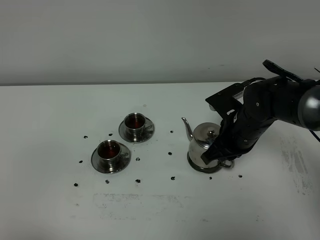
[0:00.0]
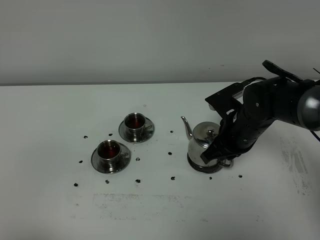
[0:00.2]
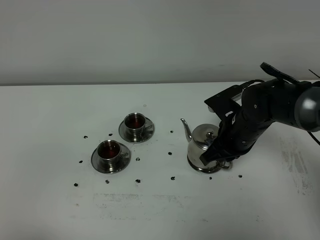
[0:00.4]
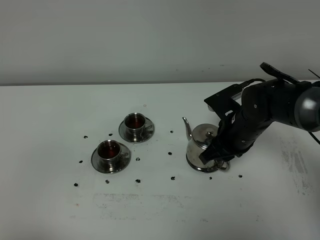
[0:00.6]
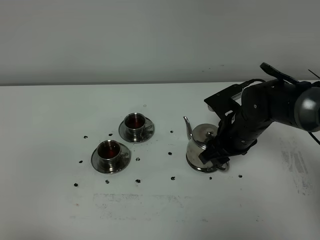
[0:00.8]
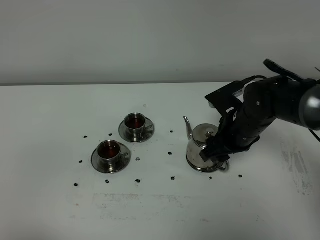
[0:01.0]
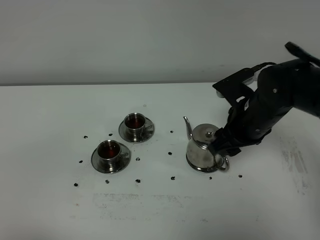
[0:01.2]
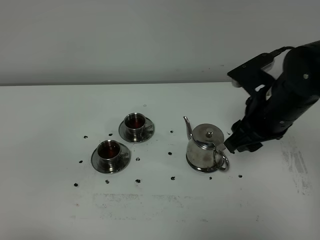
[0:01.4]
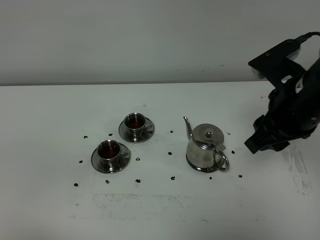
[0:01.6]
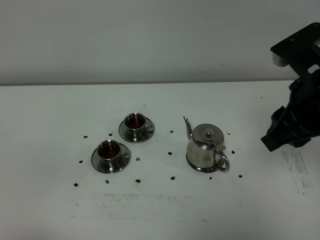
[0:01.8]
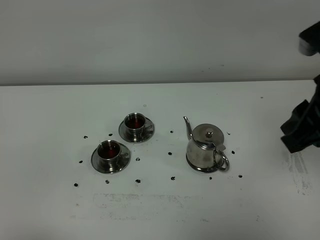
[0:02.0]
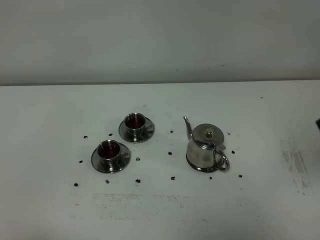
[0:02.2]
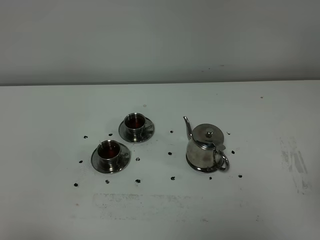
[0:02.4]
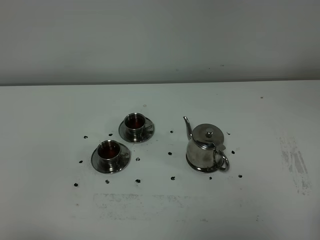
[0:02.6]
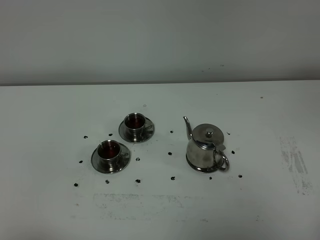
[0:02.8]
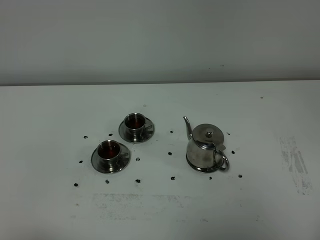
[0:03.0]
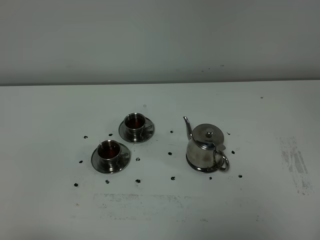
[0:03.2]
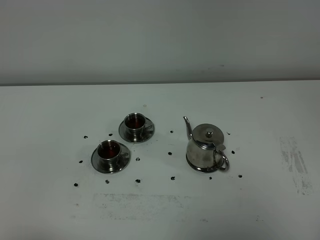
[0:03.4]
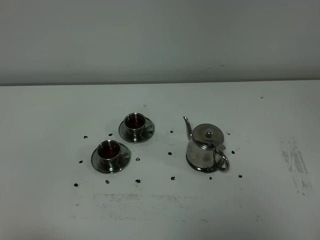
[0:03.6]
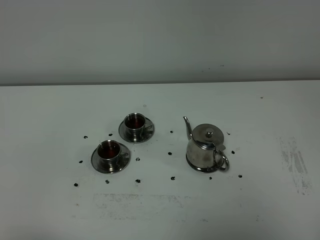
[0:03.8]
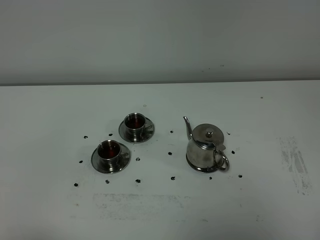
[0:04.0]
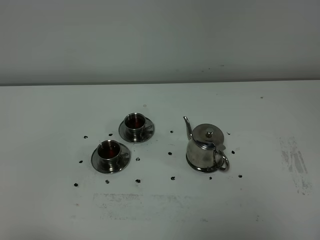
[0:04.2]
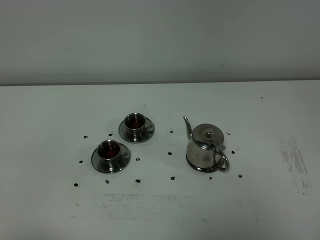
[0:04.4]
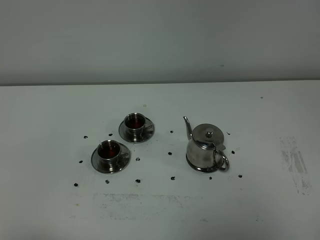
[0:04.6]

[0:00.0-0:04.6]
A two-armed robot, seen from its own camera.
Task of the whole recording: grasp the stainless steel teapot and pour the tea into the two stainless steel teacups one by one, put the stainless steel teapot back in its original place.
0:00.0 to 0:01.6: The right gripper travels upward and backward by roughly 20 cm, and opens up.
0:01.6 to 0:03.0: The right gripper shifts approximately 25 cm backward and to the right, and closes.

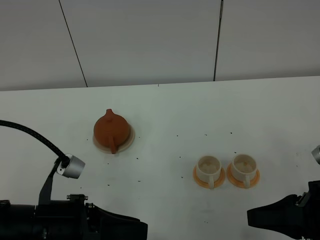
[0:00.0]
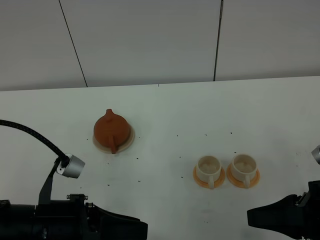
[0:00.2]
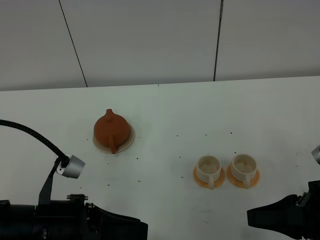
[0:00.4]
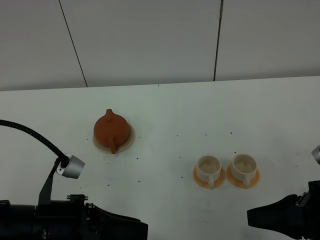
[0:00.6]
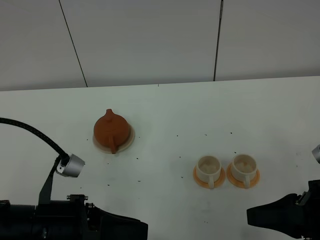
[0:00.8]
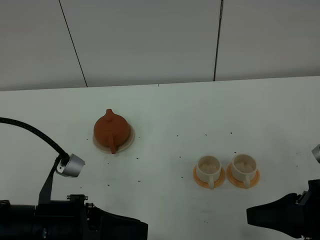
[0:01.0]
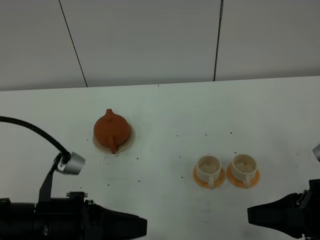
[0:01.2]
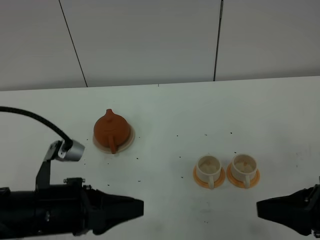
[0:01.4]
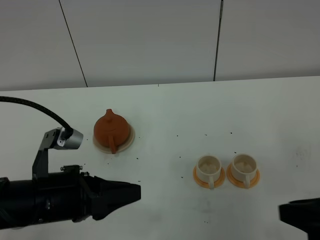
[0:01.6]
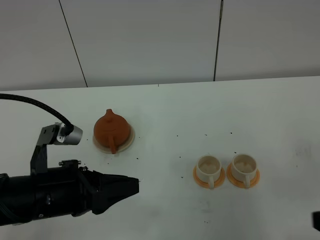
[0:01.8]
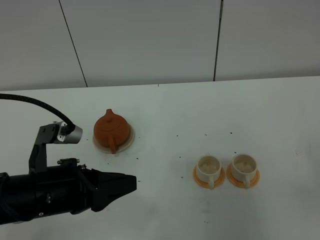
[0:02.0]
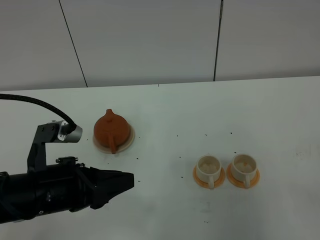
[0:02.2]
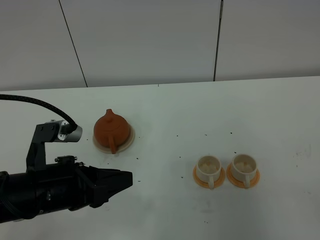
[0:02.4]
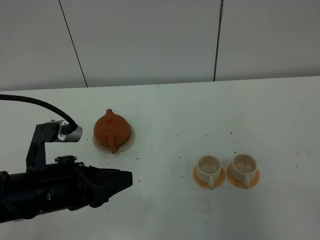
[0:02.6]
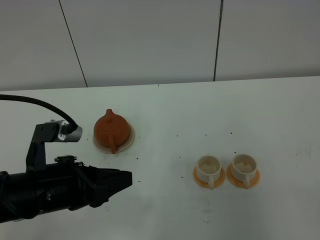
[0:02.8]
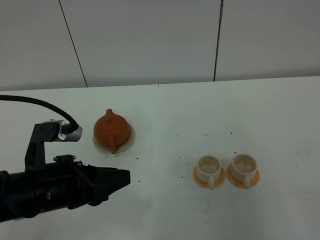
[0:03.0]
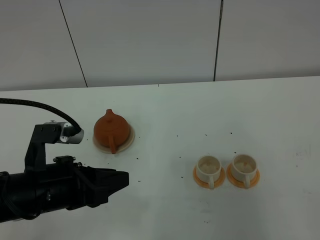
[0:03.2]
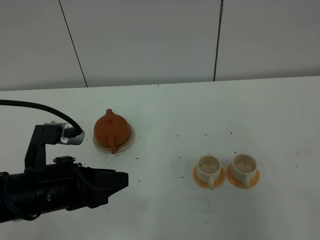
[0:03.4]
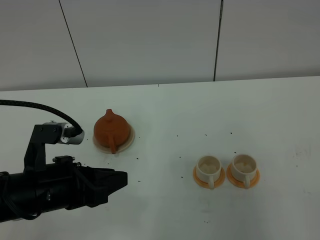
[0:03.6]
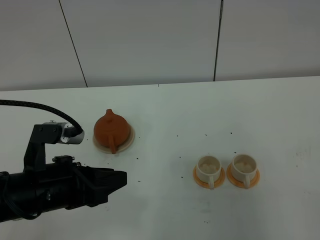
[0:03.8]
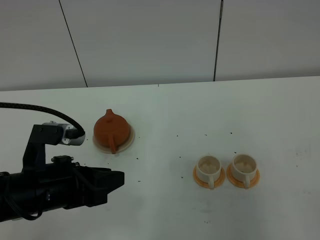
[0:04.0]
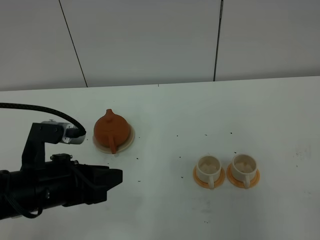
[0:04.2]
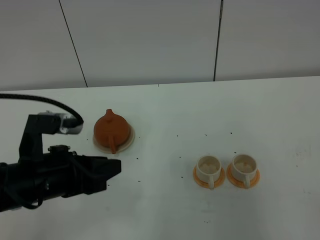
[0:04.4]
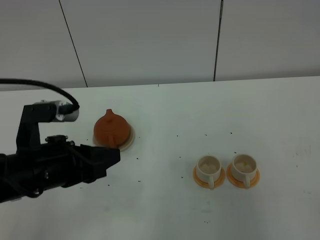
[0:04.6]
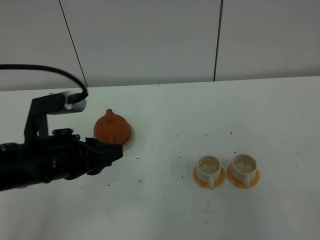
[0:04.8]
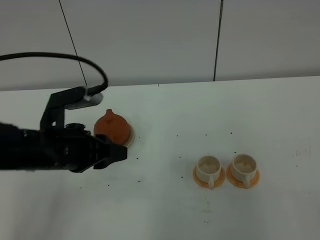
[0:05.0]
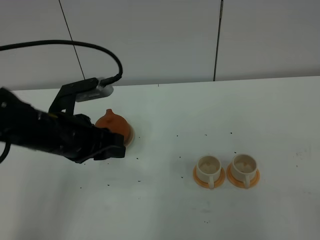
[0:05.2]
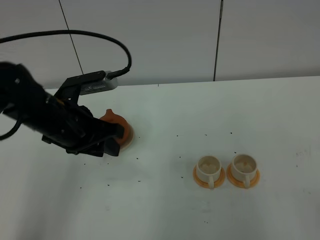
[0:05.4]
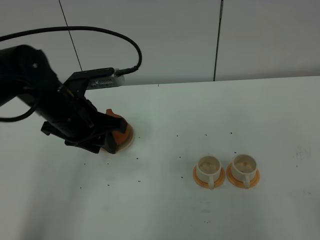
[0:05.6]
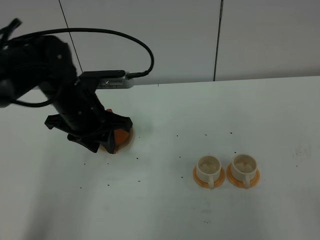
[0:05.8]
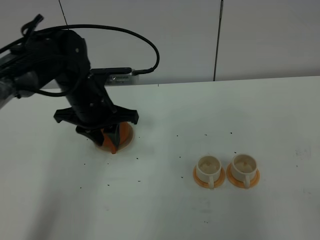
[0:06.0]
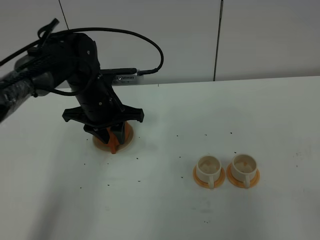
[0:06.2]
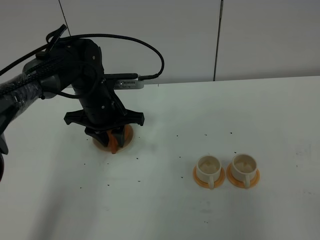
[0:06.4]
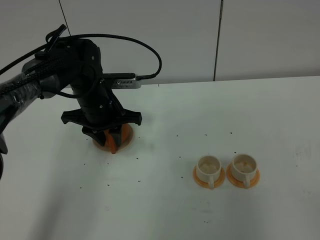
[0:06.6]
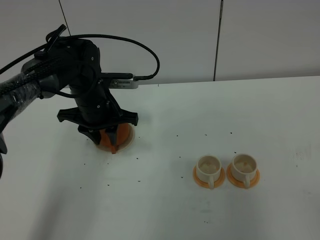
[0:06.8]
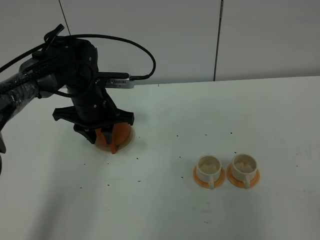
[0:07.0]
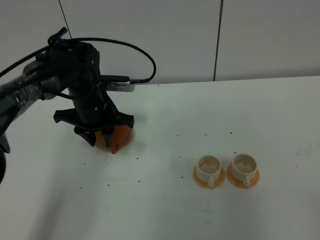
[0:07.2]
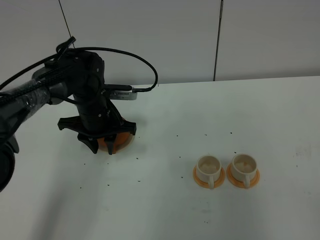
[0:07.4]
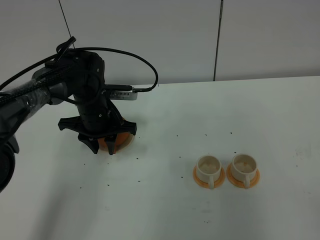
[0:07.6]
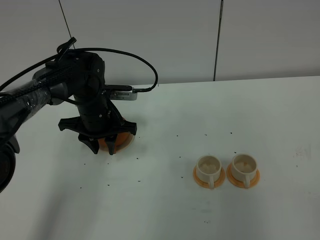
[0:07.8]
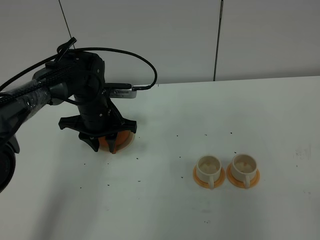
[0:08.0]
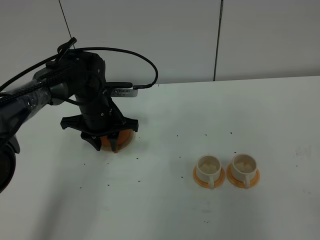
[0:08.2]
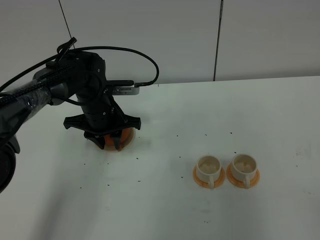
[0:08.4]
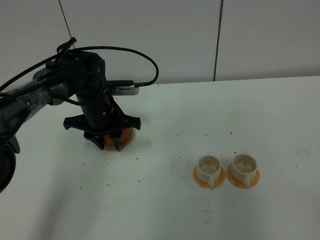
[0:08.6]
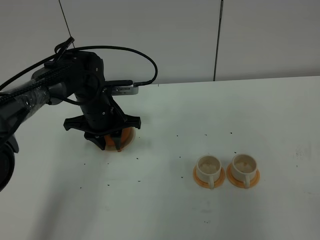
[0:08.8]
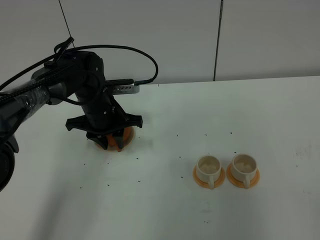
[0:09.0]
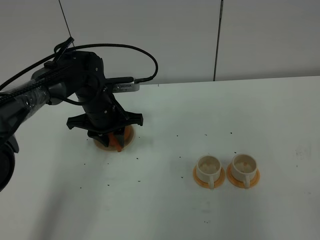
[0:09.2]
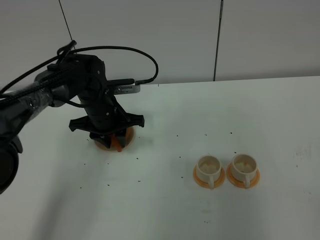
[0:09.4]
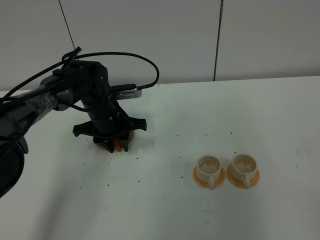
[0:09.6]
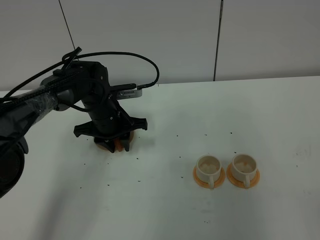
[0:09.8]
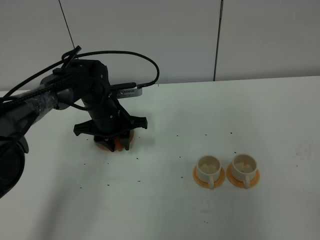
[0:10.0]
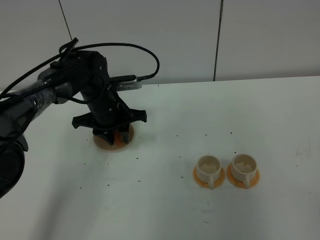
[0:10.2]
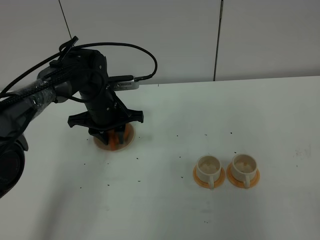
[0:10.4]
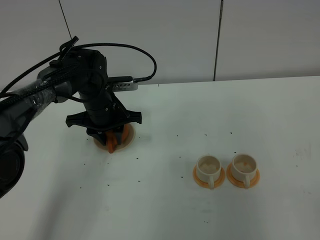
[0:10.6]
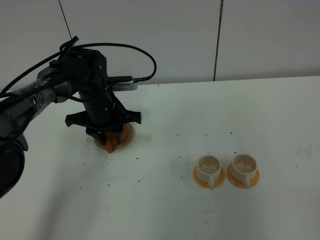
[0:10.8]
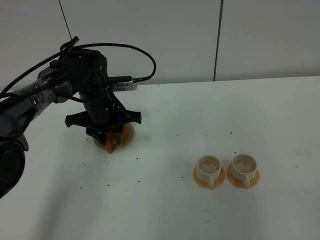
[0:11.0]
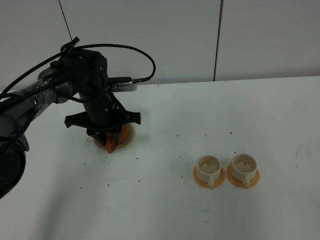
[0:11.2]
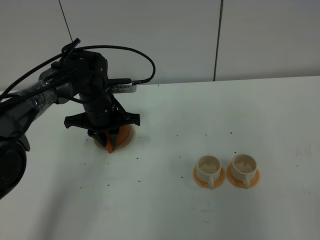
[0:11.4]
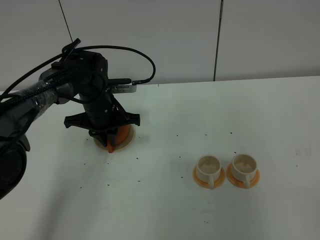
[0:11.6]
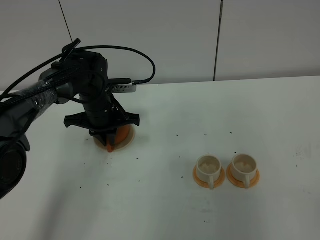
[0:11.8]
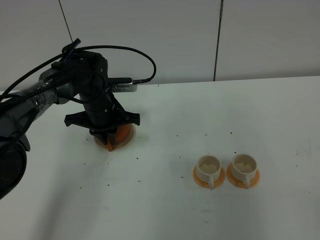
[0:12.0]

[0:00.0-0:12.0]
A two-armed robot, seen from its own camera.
Task of the whole recording: grasp the brown teapot and pour the tea into the two white teacups one by one, put the brown teapot back in its original place.
0:00.0 to 0:01.6: The right gripper shifts by about 5 cm.
0:01.6 to 0:03.0: The right gripper shifts some 15 cm backward and to the right.
0:03.0 to 0:04.4: The grippers move only a little.
0:04.4 to 0:06.0: The left gripper goes roughly 20 cm forward.
0:06.0 to 0:07.6: The left gripper is displaced downward by some 5 cm.
0:07.6 to 0:10.4: The grippers move only a little.
0:10.4 to 0:12.0: The left gripper closes its fingers.

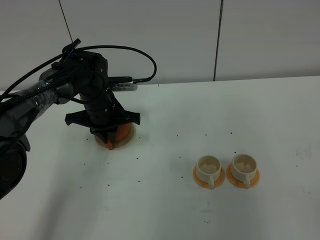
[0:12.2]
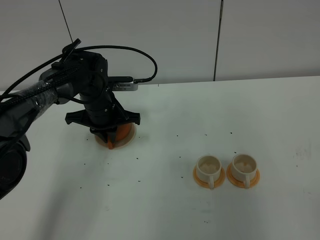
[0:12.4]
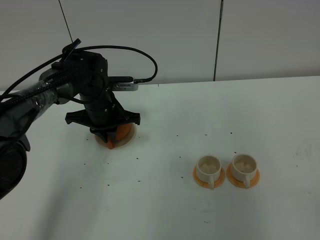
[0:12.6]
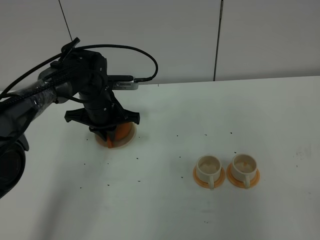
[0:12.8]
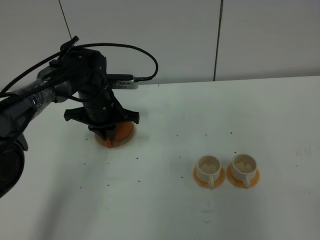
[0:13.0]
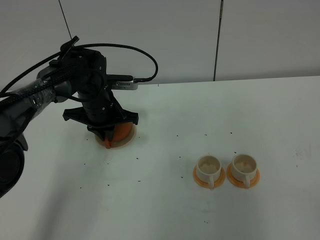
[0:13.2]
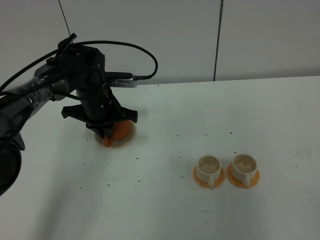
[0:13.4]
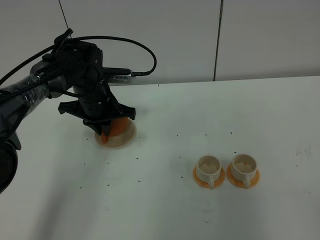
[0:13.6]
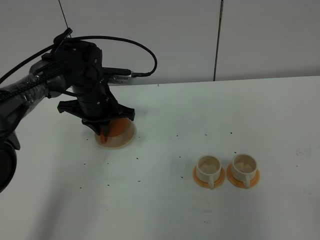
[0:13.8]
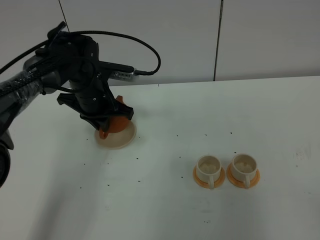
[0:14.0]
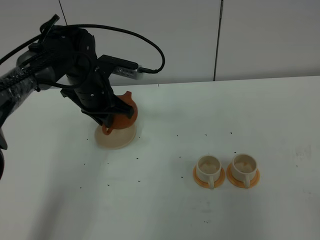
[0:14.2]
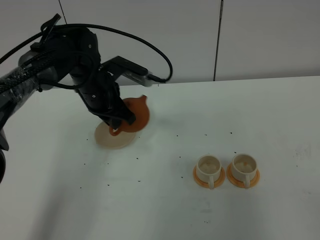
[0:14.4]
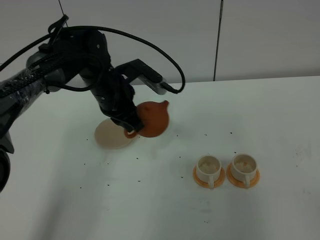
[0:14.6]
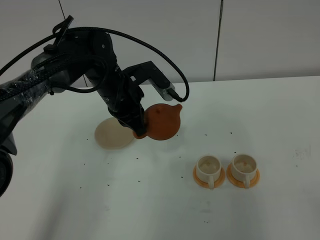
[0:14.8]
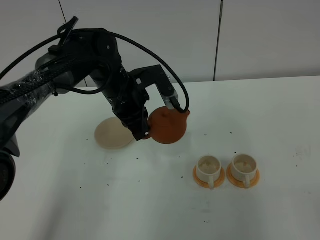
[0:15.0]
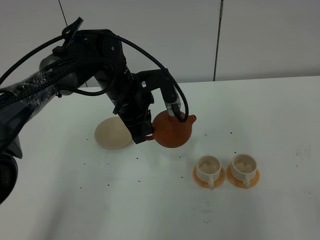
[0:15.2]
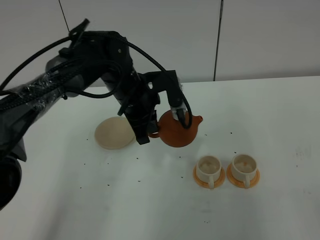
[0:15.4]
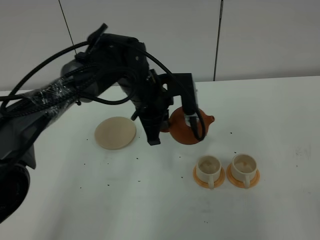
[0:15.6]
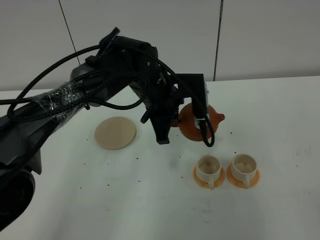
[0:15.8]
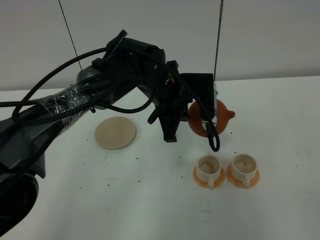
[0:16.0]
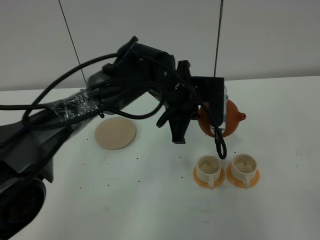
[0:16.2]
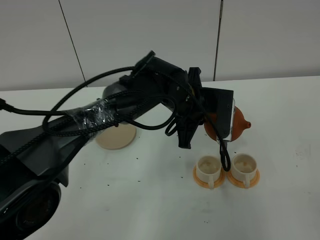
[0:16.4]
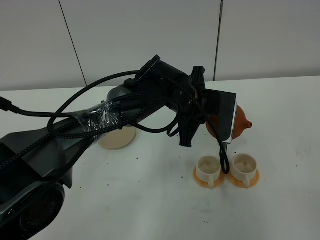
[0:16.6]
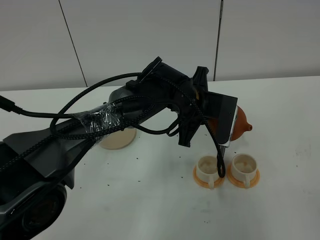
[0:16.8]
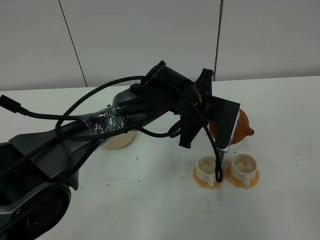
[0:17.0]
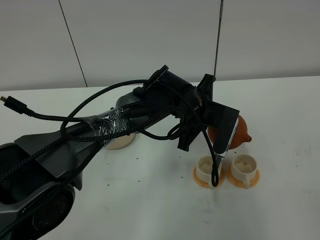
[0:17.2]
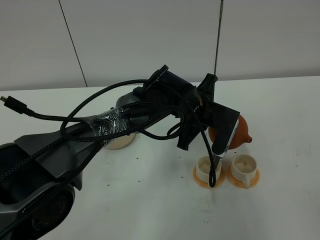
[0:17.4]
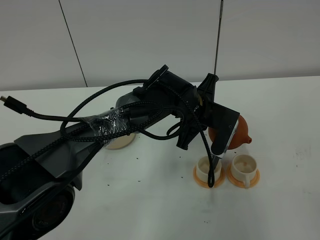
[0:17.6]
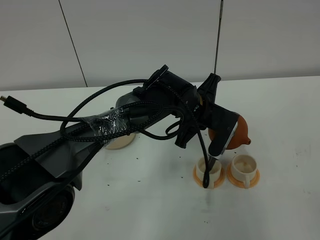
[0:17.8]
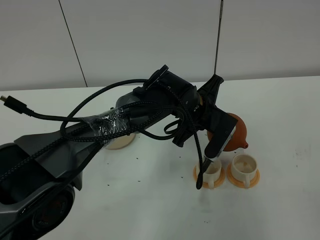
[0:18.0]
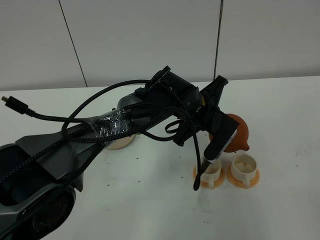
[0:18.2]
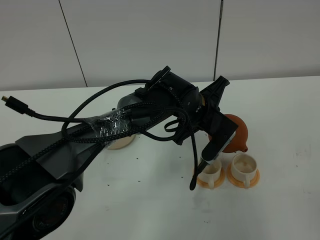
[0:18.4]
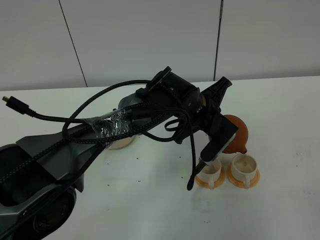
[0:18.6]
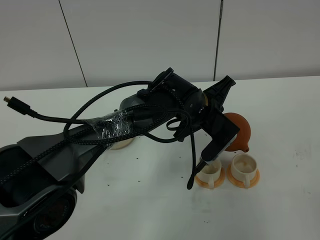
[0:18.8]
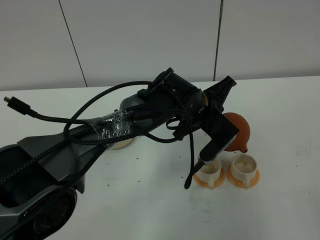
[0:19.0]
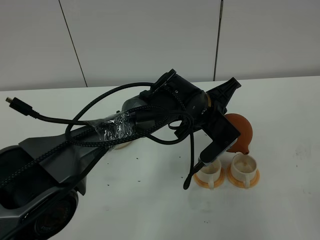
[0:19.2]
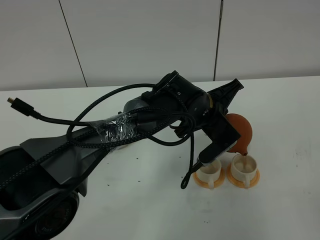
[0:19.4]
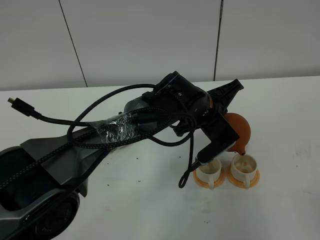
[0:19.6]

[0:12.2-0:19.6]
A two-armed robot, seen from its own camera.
Task of the whole recording: grasp the brown teapot and pour the tea into the two white teacups one by one, put the brown teapot back in its original place.
Step, 0:12.2 to 0:14.4: Pick up the teapot with the left gripper.
0:12.2 to 0:13.6: The grippers move only a little.
0:13.6 to 0:15.2: The left gripper is displaced to the right by approximately 5 cm.
0:15.2 to 0:16.6: The left gripper goes some 10 cm to the right.
0:18.2 to 0:19.6: The grippers move only a little.
